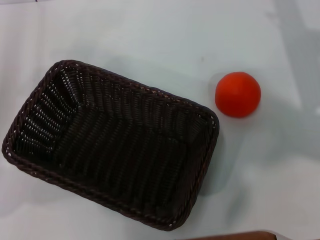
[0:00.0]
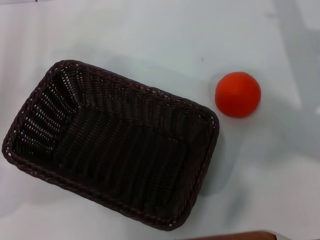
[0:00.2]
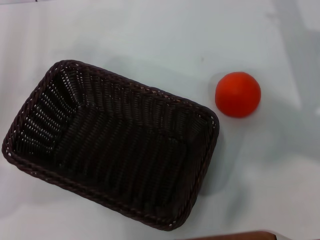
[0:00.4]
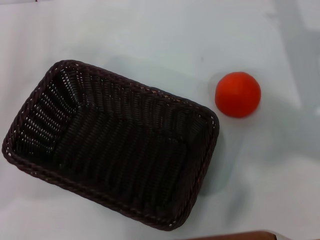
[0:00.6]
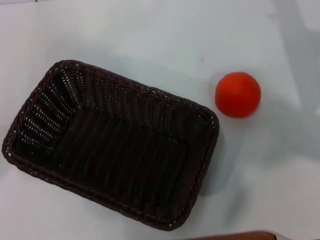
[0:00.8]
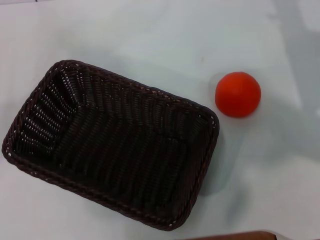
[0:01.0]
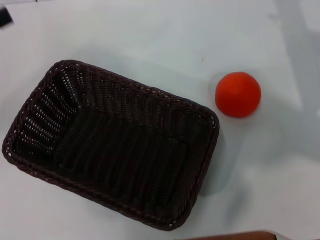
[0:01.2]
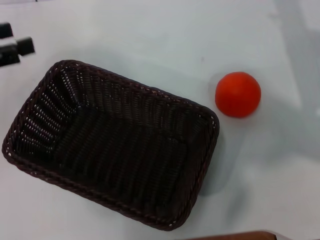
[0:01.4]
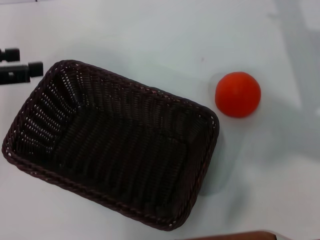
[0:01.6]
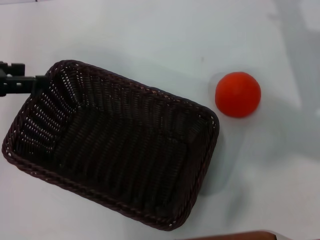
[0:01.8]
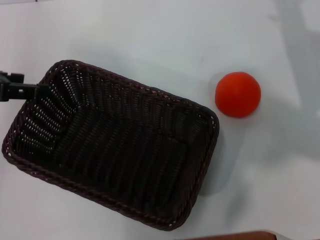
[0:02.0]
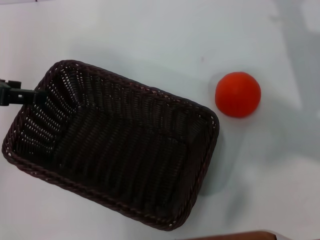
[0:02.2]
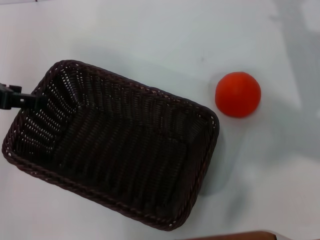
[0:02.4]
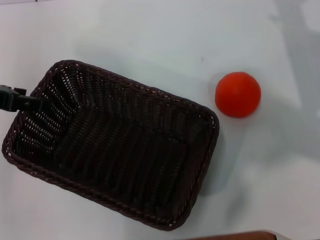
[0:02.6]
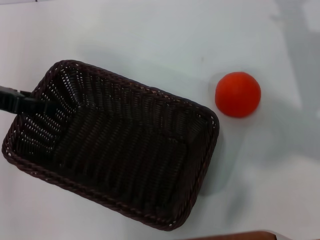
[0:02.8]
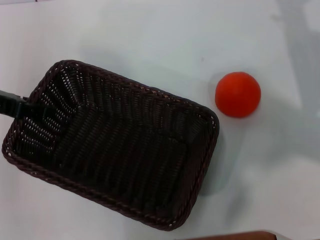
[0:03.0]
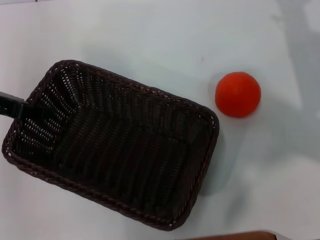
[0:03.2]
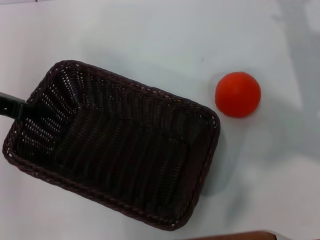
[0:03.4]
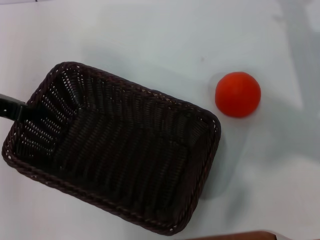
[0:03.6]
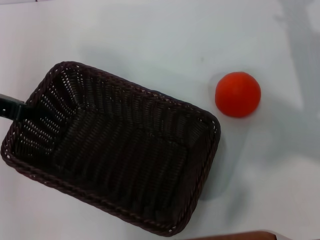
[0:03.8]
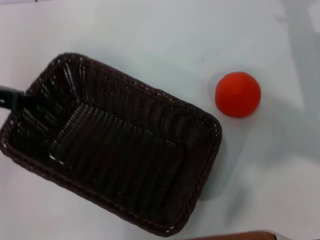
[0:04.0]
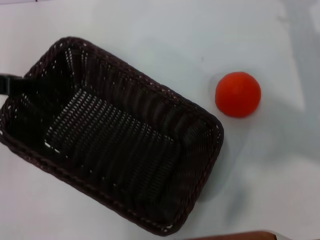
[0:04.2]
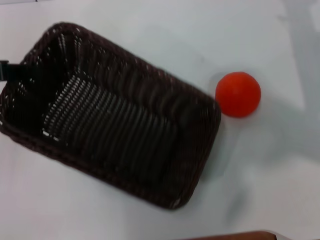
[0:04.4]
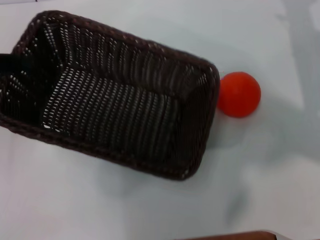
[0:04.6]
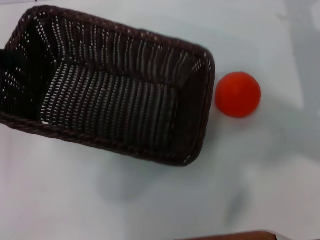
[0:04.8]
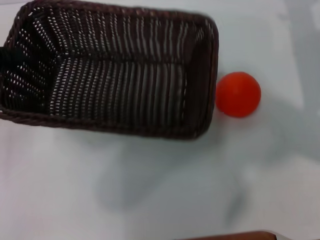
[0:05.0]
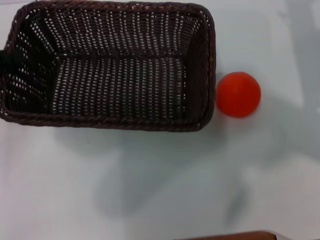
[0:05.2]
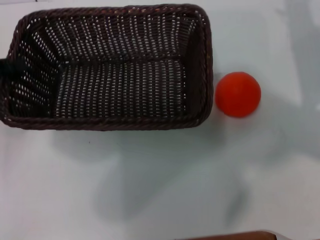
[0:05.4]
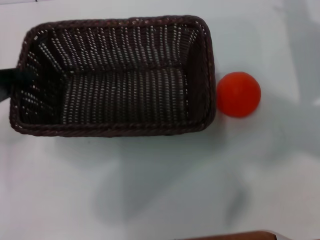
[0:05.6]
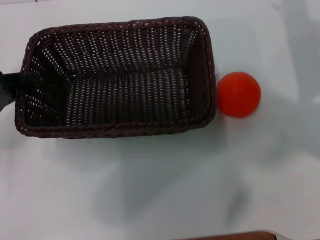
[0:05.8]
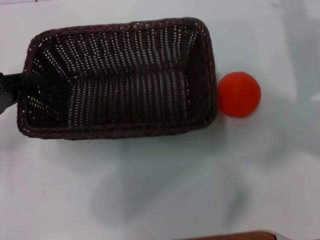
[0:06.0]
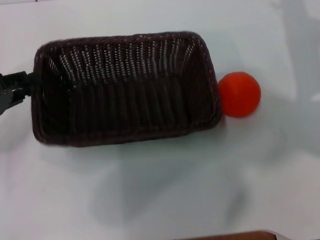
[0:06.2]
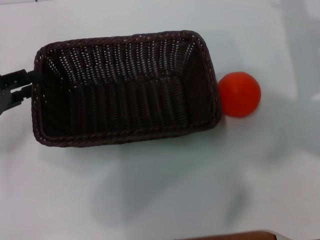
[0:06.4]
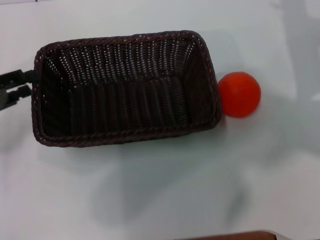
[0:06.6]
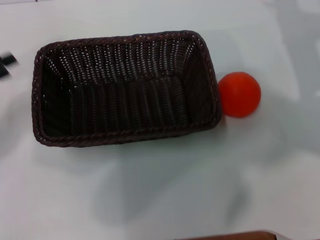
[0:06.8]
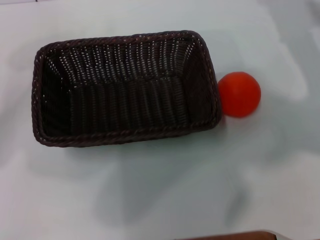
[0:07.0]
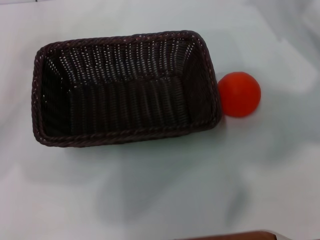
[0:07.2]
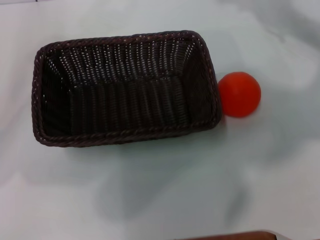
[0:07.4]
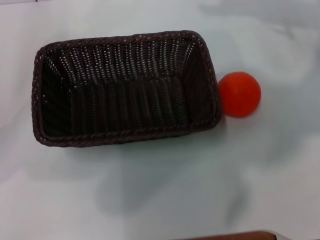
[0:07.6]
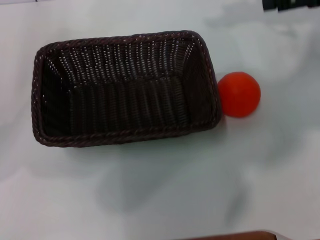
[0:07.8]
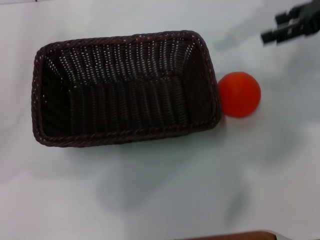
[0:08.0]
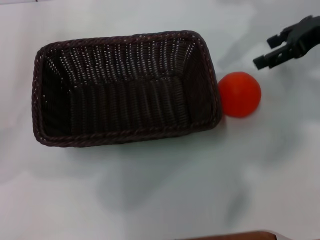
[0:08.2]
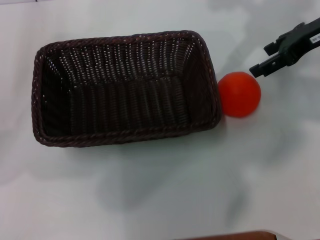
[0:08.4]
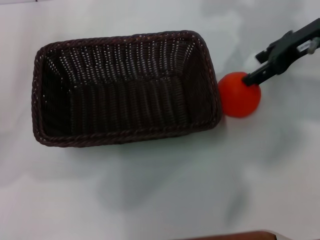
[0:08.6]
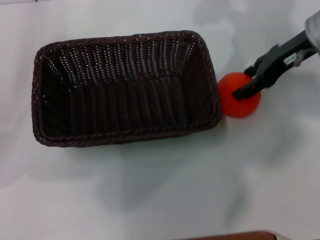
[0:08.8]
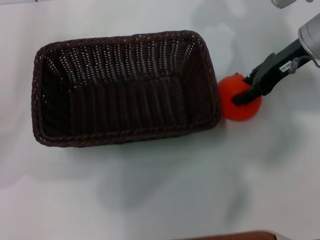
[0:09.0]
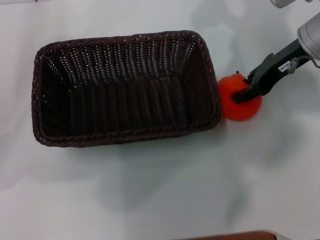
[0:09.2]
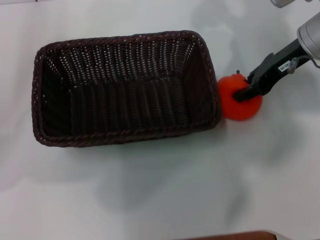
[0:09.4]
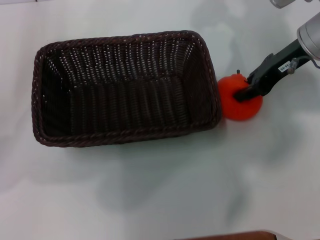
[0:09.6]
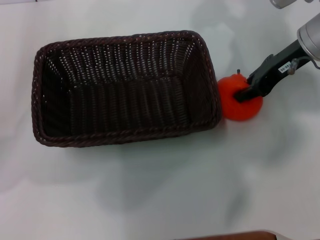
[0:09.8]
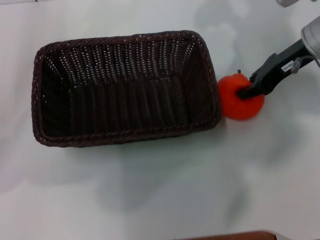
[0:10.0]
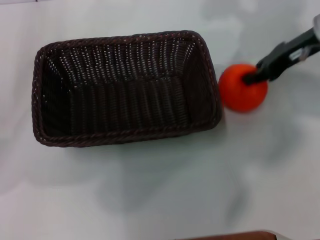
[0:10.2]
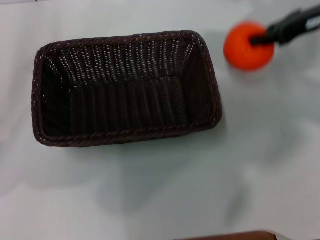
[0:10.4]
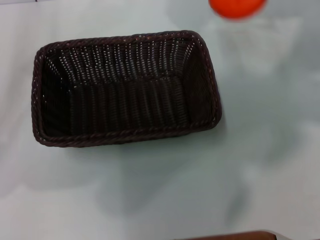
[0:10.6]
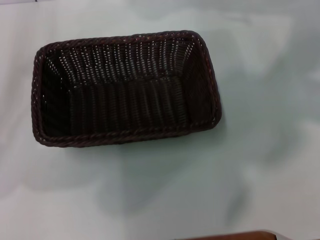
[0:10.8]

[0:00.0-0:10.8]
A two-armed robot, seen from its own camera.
Task of the whole recording: the left gripper pick up the black basket and place it horizontally in the middle of the table, the right gripper pick up the orange and place it into the black basket.
Step, 0:00.0 to 0:04.6: Pick up the dark basket with the left gripper.
Step, 0:04.8 to 0:06.4: Place the dark basket in the center of view with the left gripper.
Step, 0:06.8 to 0:10.2: Pick up the orange with the right gripper.
0:00.0 to 0:01.6: The left gripper shifts roughly 10 cm upward, and opens.
0:03.0 to 0:04.6: The left gripper closes.
0:04.6 to 0:06.2: The left gripper shifts approximately 10 cm downward.
0:06.2 to 0:07.8: The right gripper goes some 10 cm upward. Meanwhile the left gripper opens.
0:07.8 to 0:09.2: The right gripper shifts about 10 cm to the left and downward, and closes.
0:09.2 to 0:10.8: The right gripper moves upward, approximately 10 cm, and closes its fingers.

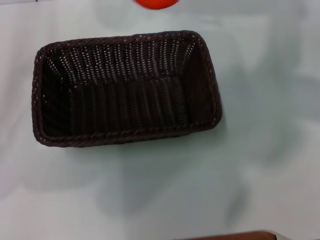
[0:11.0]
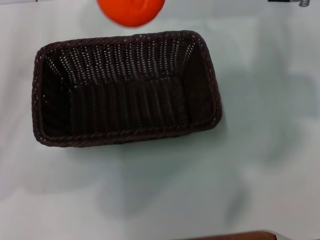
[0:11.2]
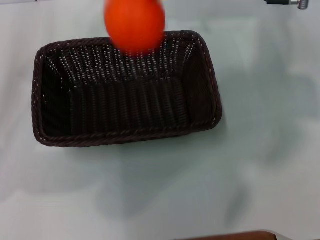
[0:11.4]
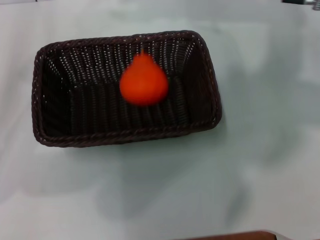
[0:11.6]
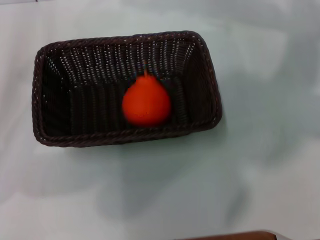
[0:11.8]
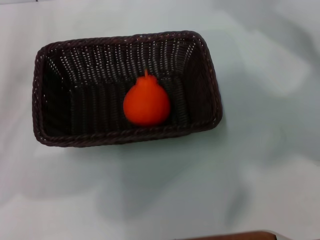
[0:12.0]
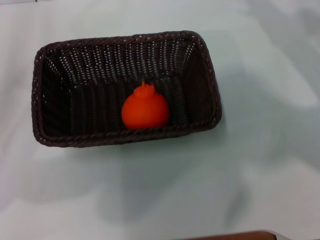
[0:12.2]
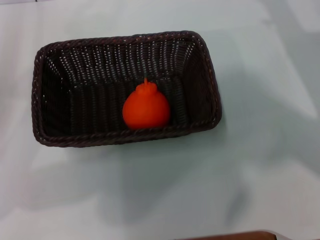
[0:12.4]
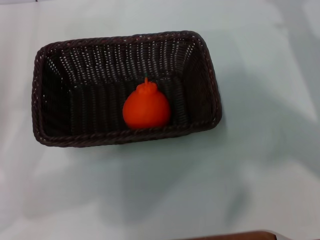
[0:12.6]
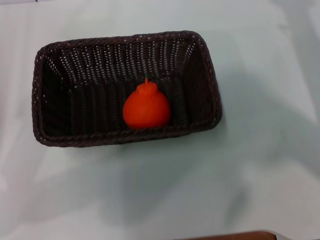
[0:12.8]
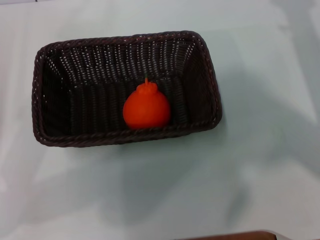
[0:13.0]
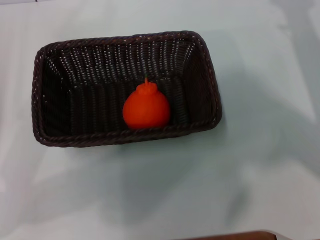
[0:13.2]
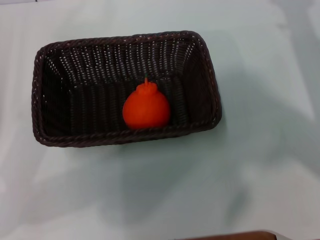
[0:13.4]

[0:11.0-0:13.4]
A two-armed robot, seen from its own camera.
Task of the whole recording: the left gripper pick up the black basket and place it horizontally in the middle of the table, the right gripper pick up the orange and place it into the black basket.
0:11.0 to 0:12.2: The right gripper heads to the right, downward and backward, covering approximately 15 cm, and opens its fingers.
